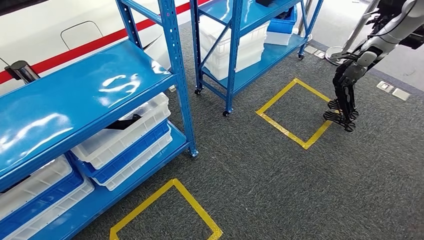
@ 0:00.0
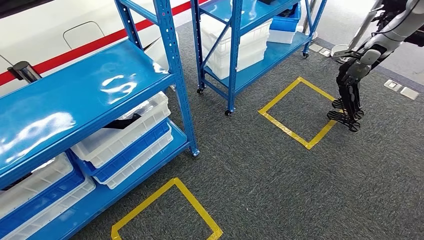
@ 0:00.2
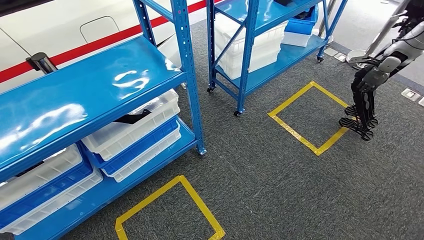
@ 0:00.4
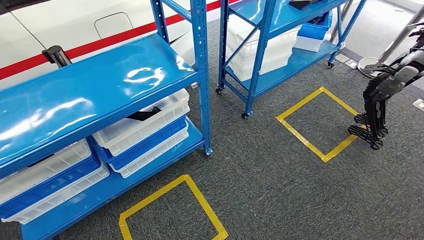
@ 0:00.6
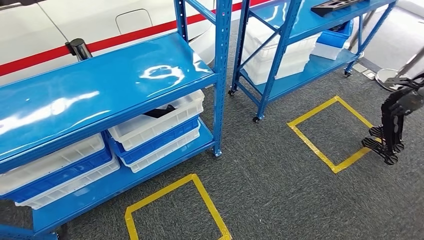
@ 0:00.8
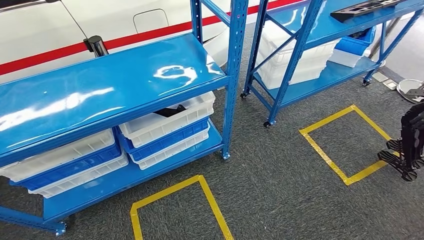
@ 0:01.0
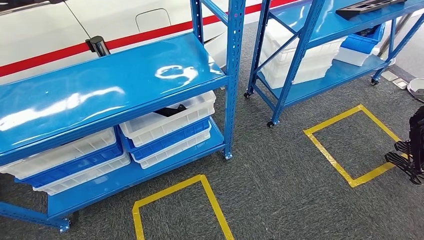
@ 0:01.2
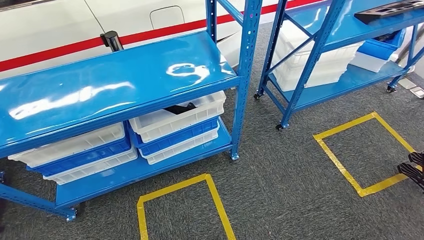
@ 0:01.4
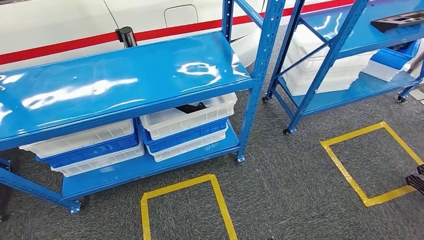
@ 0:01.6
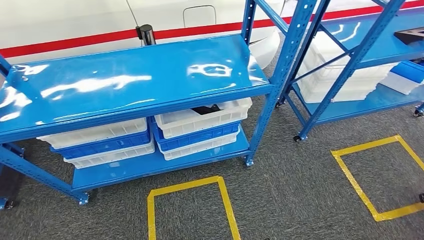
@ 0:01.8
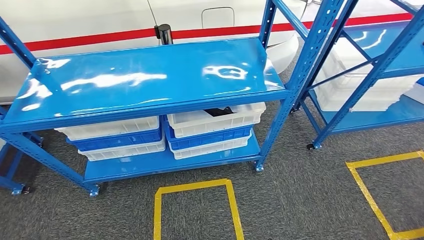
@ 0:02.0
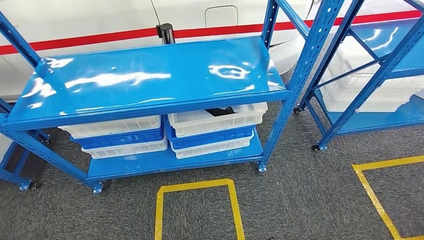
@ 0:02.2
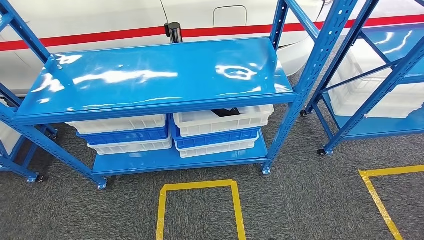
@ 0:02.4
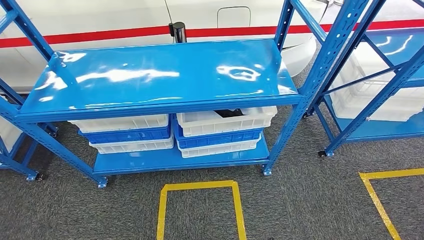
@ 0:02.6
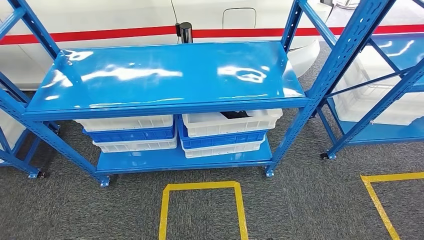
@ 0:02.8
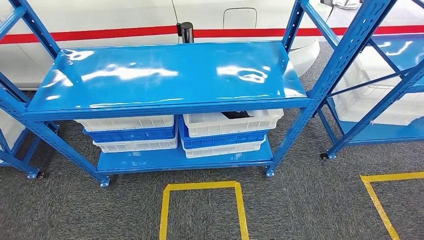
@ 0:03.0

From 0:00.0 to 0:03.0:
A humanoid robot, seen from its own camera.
Step, from 0:00.0 to 0:03.0: Move to the initial position of the shelf.
